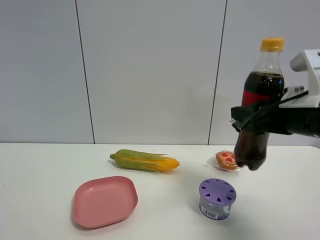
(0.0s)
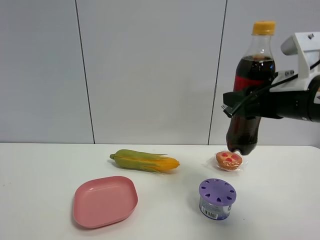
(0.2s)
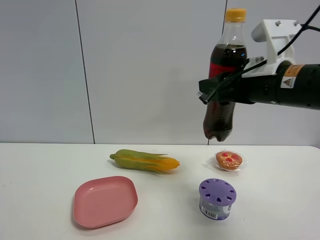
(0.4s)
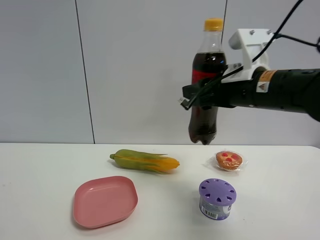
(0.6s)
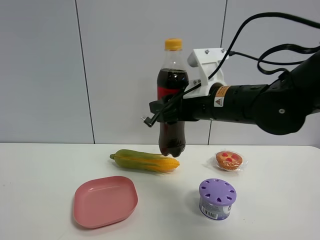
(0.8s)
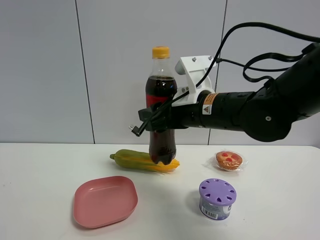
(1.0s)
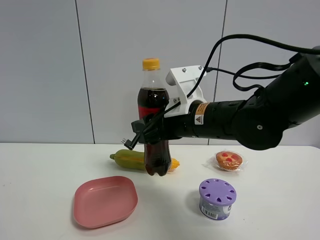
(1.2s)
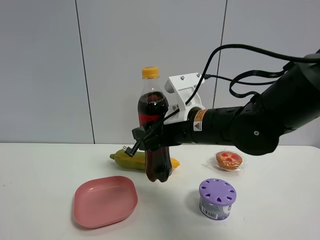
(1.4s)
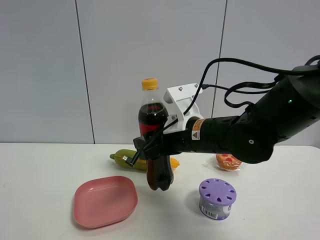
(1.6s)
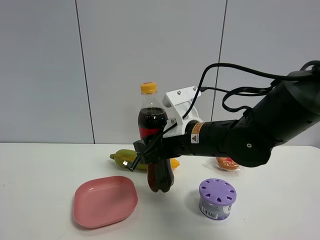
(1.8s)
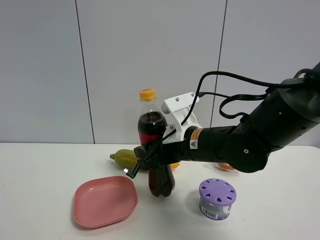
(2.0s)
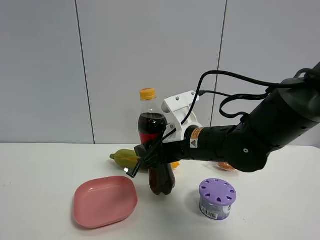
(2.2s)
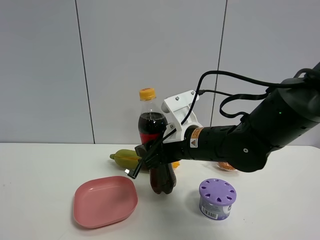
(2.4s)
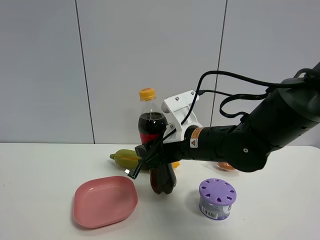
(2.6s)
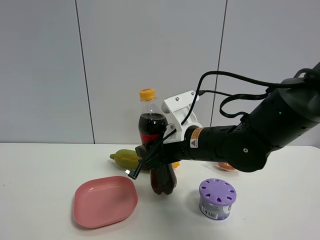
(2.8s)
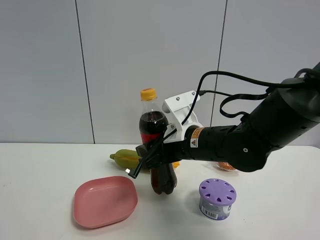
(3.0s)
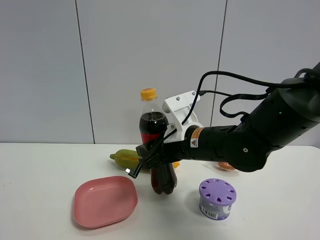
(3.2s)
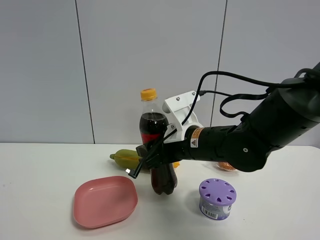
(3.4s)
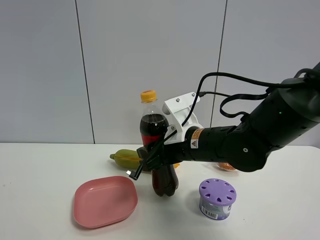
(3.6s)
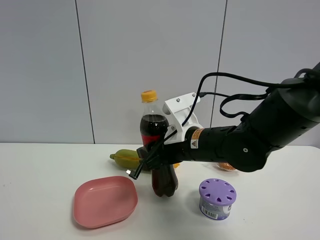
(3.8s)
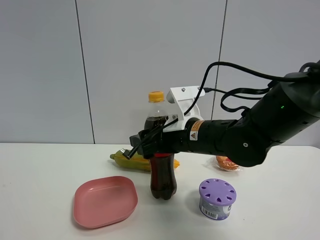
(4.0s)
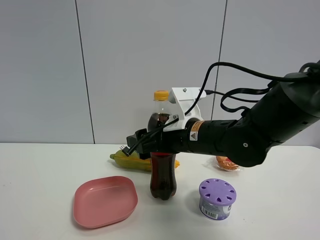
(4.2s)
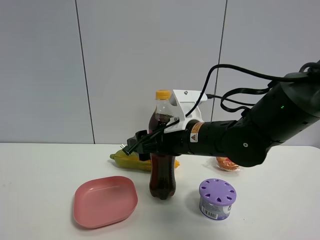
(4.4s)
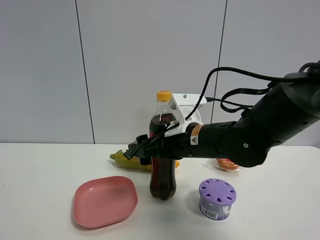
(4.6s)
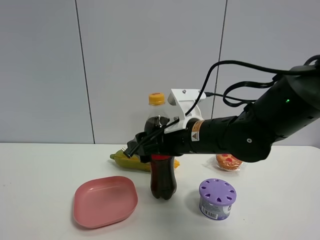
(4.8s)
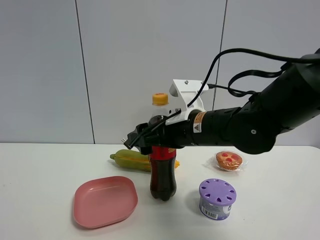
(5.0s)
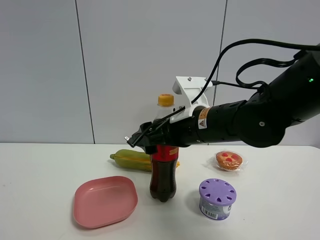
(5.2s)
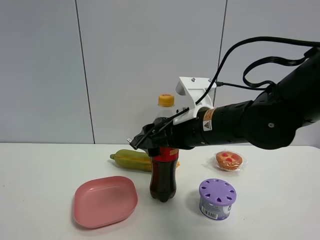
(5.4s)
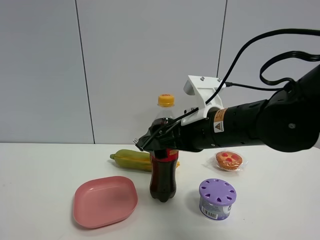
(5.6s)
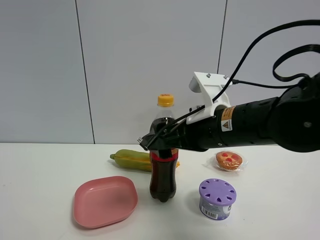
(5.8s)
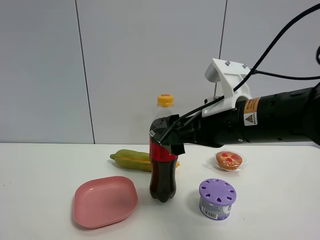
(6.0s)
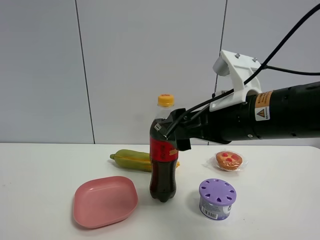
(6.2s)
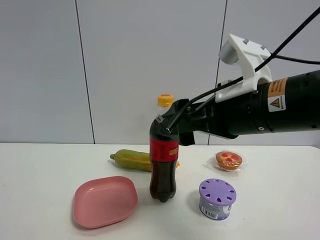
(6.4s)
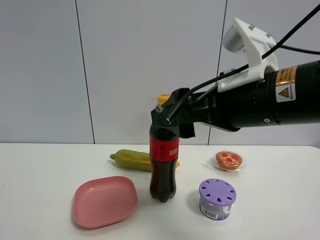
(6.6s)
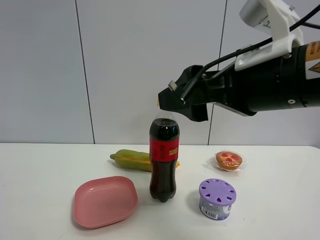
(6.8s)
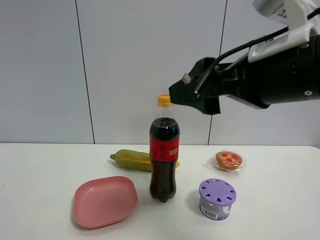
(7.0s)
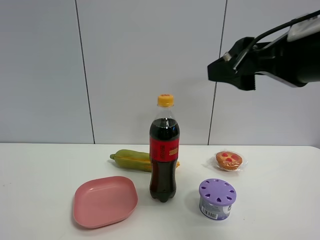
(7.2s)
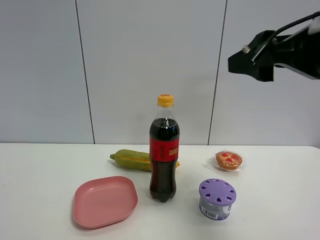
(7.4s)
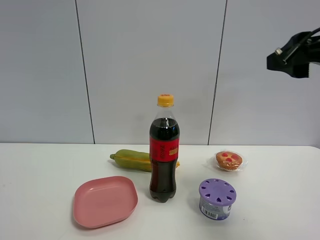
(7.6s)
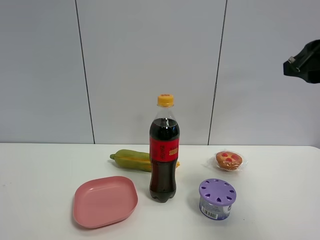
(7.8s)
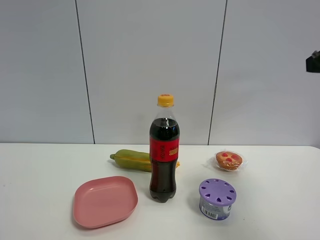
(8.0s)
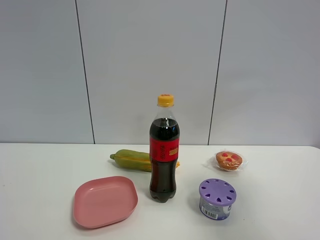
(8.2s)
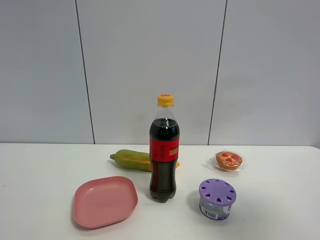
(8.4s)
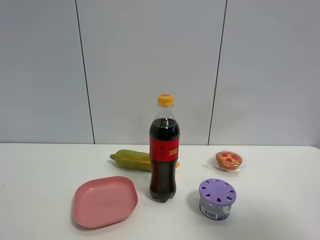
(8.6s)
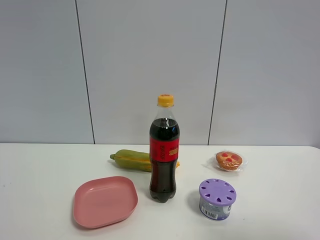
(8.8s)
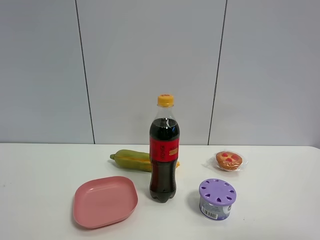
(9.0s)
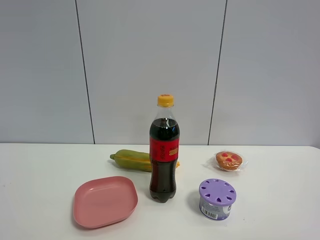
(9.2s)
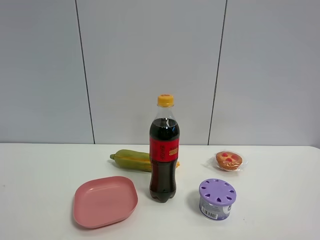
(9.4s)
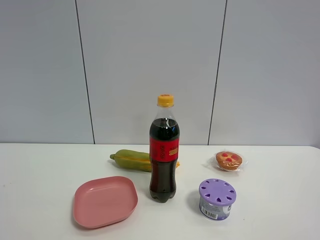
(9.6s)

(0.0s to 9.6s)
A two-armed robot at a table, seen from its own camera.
Task of the whole recording: the gripper move the object.
Step, 0.0s - 5.4s: Place the coke on the table with the right gripper.
0.0s - 1.6s: The right gripper shifts roughly 15 cm to the left and downward.
1.6s - 3.2s: The grippers move only a little.
3.2s - 4.8s: The right gripper opens its fingers.
4.8s - 6.4s: The right gripper heads backward, upward and to the right, covering some 15 cm.
6.4s - 8.0s: The right gripper heads to the right and upward, covering roughly 20 cm.
8.0s - 9.6s: The right gripper goes about 20 cm backward.

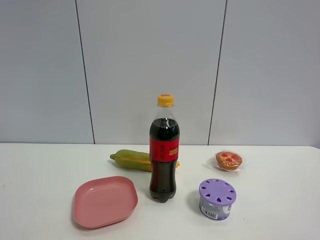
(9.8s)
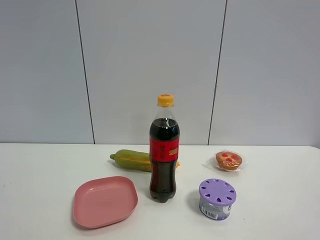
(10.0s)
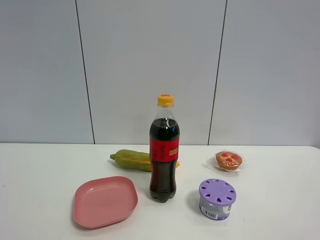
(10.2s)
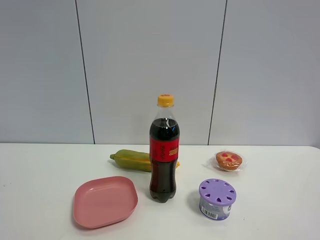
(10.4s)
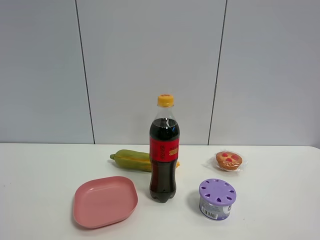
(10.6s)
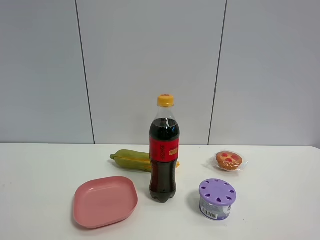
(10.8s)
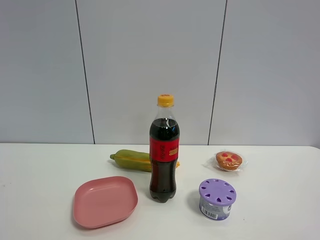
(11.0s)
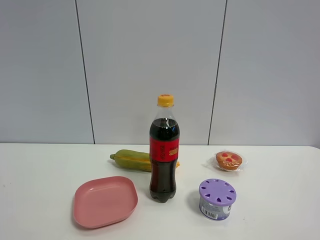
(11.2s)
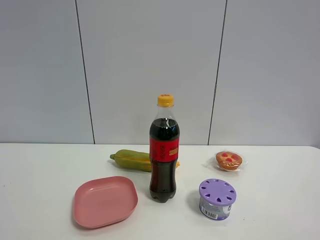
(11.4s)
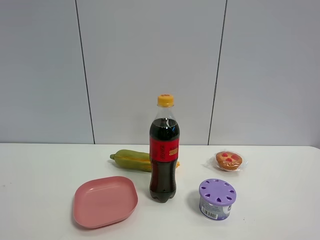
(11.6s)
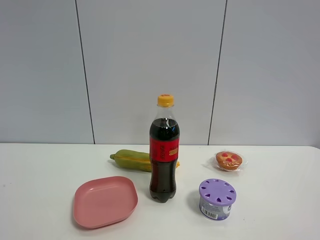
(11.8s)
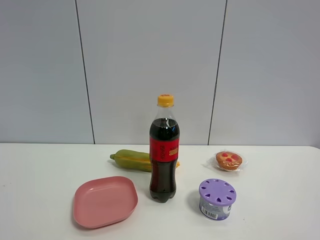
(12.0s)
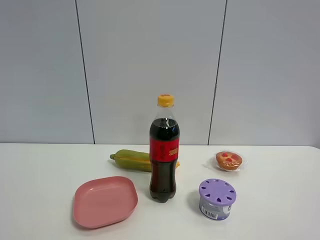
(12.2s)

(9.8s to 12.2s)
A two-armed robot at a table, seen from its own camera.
Task of the whole recording: the gripper move the object.
9.8s - 12.2s: Neither gripper changes place.

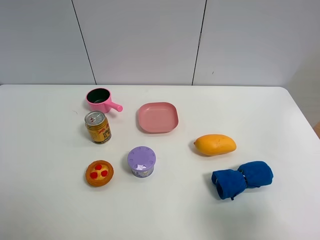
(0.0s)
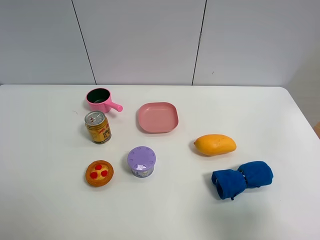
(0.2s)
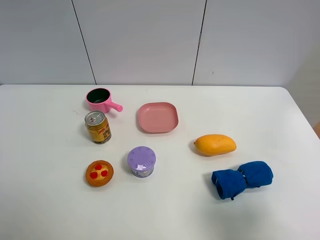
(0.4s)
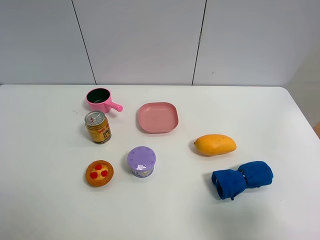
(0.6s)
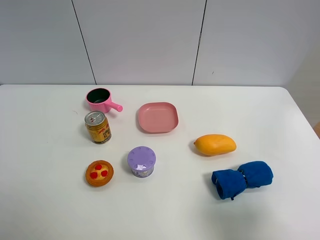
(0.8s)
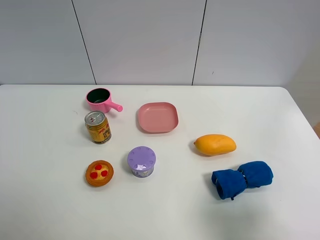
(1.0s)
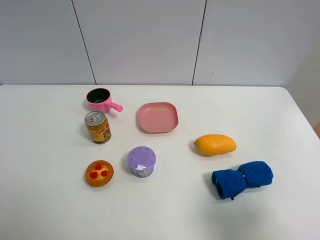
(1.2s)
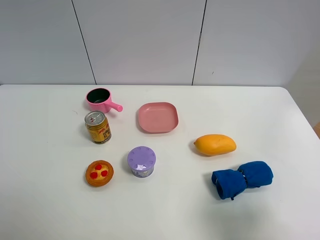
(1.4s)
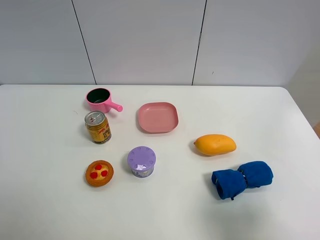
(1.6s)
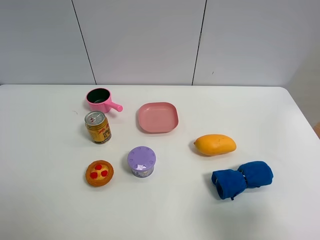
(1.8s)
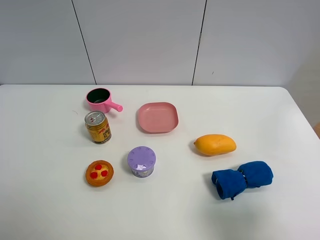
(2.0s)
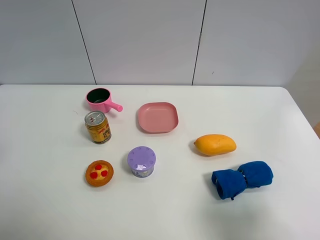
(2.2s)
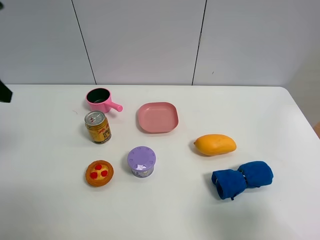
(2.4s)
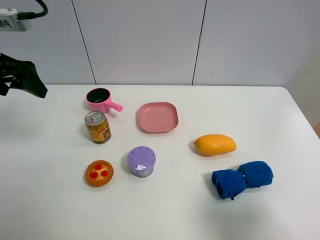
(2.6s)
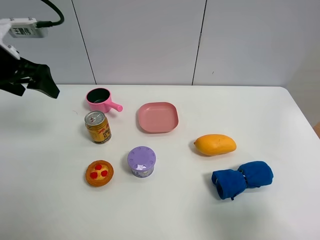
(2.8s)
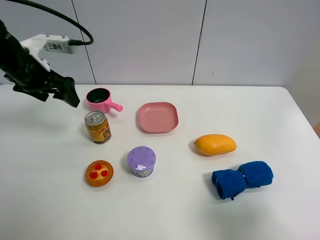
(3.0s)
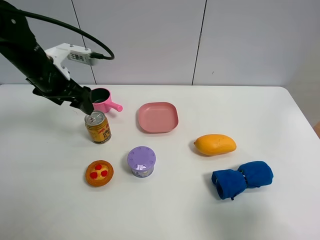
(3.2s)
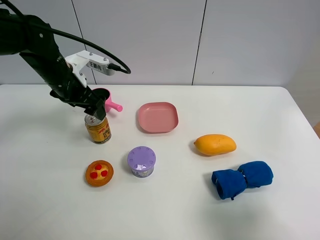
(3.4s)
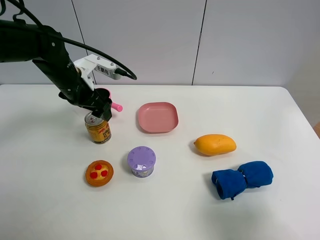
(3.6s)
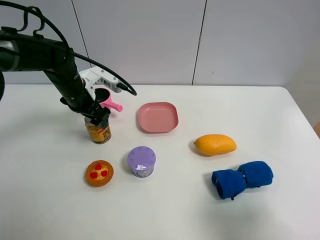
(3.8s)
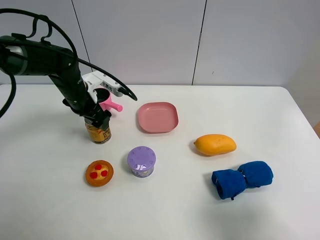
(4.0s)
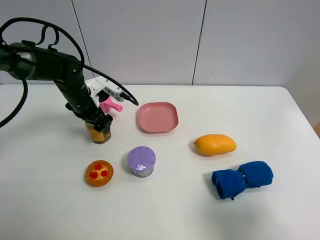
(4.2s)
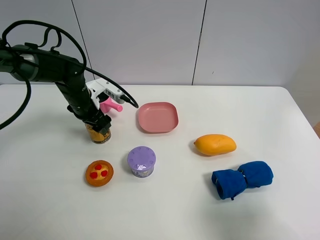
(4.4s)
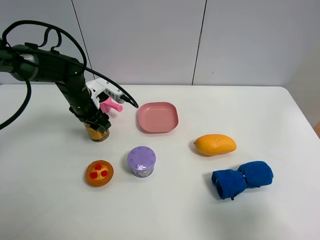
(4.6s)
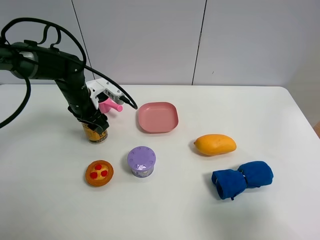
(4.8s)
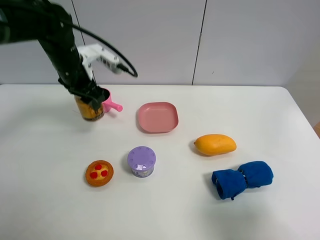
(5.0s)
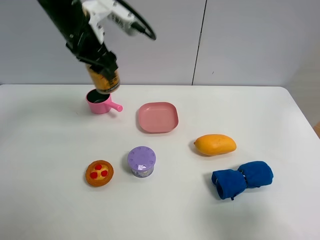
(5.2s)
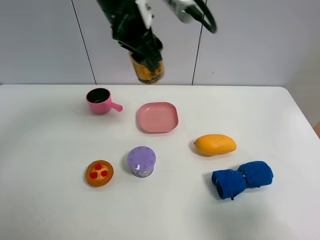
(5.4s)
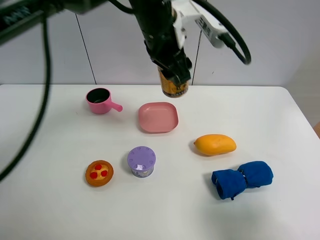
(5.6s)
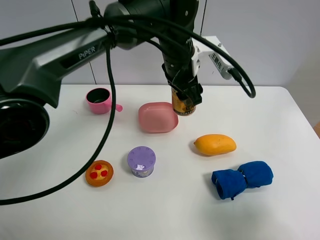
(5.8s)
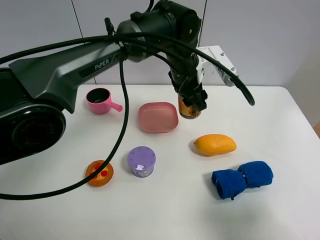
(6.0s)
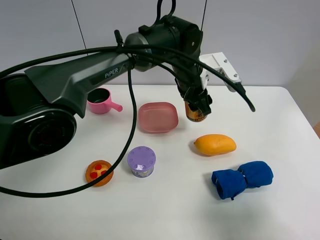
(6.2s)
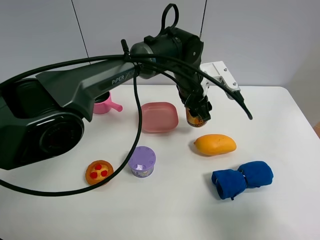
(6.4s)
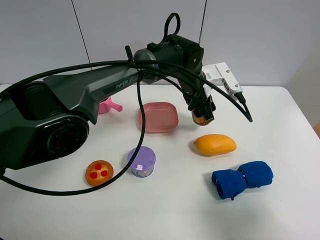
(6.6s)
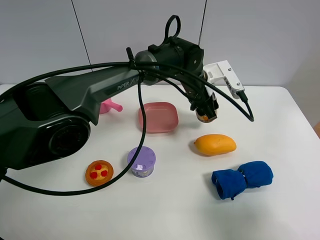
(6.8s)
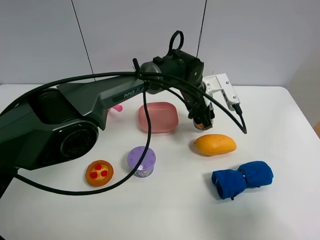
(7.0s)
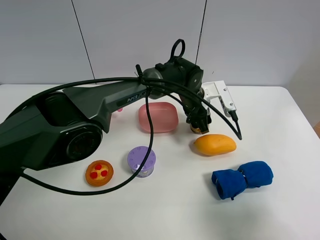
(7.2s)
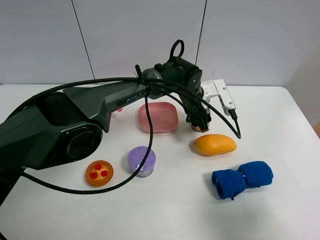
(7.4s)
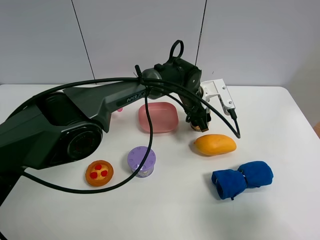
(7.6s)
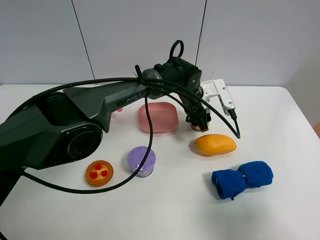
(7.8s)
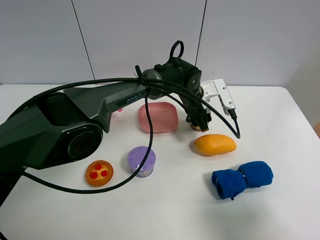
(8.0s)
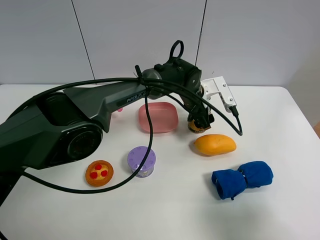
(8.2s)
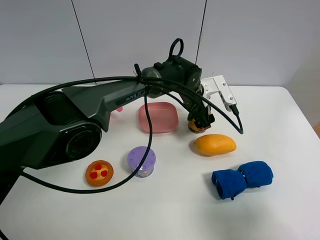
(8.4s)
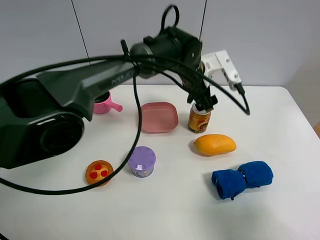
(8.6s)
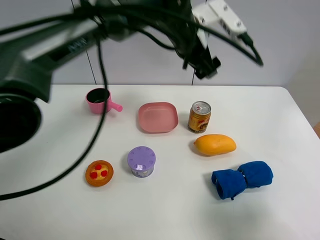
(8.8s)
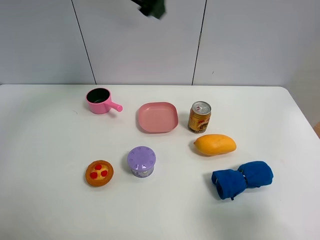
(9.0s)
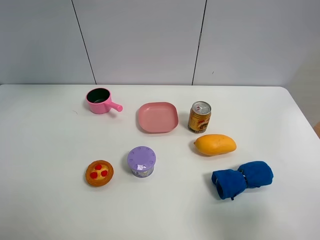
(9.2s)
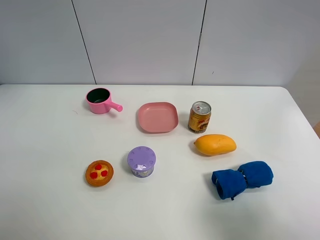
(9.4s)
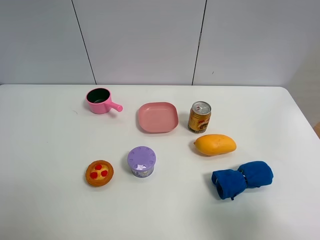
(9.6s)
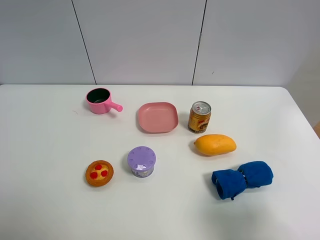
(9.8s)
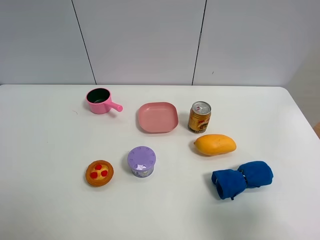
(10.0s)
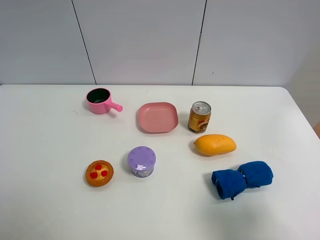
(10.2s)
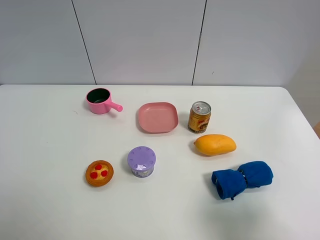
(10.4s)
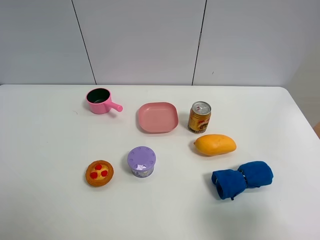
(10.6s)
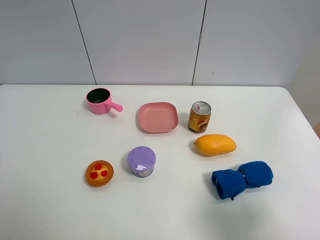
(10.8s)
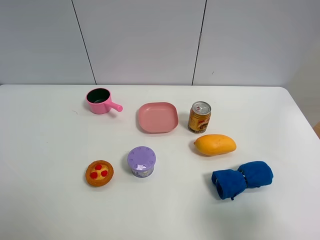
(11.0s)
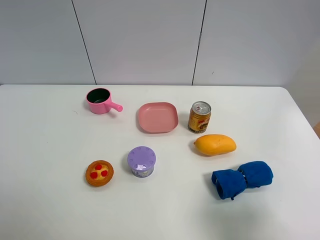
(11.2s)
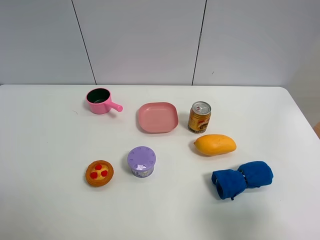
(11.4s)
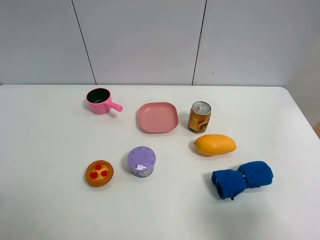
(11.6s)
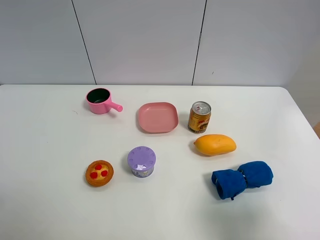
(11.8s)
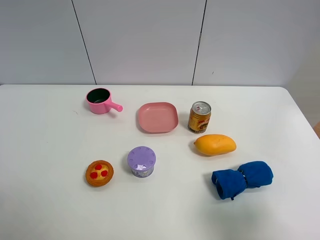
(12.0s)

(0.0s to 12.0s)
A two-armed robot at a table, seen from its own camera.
Task of the whole recording: the gripper move the object.
Step, 0.0s - 4.4s: Grasp the red bull with the left gripper.
Step, 4.6s - 8.4s: Place the red bull on the table with the left gripper.
1.6s - 3.0s: The left gripper shifts approximately 35 cm forward, and opens up.
3.0s - 4.4s: The left gripper moves downward and to the right, approximately 15 cm, and closes.
4.4s - 6.0s: The left gripper travels to the right and upward by about 25 cm, and closes.
6.0s - 7.6s: The left gripper heads downward, covering some 10 cm.
7.6s - 9.0s: The left gripper heads upward and to the left, covering some 35 cm, and opens.
9.0s - 10.4s: The left gripper is displaced backward and to the left by approximately 40 cm.
